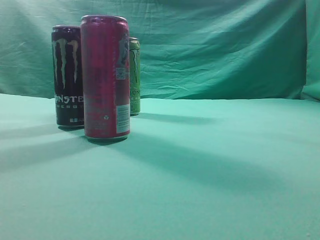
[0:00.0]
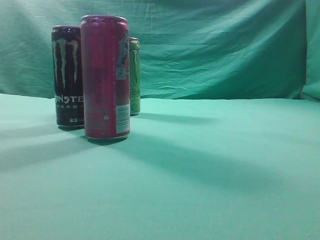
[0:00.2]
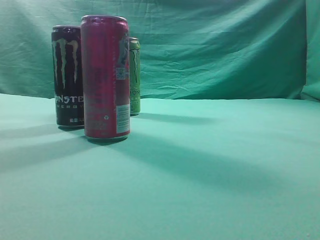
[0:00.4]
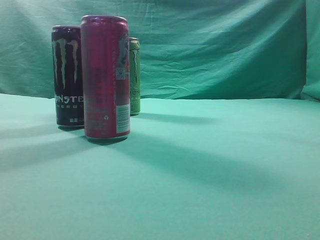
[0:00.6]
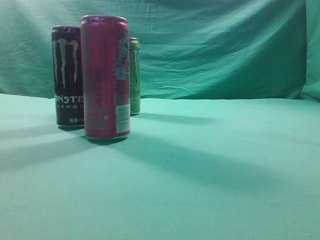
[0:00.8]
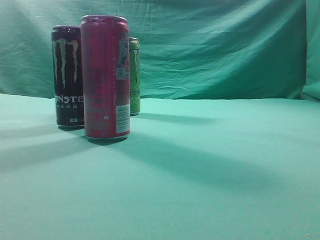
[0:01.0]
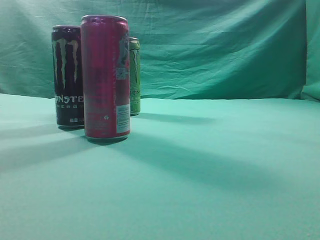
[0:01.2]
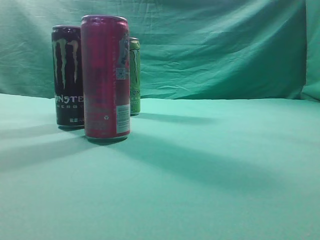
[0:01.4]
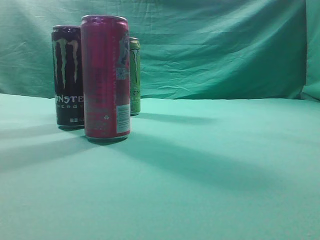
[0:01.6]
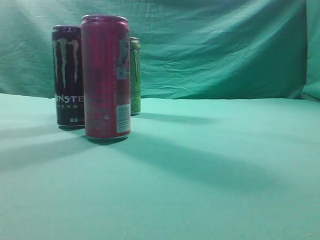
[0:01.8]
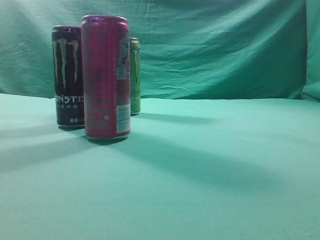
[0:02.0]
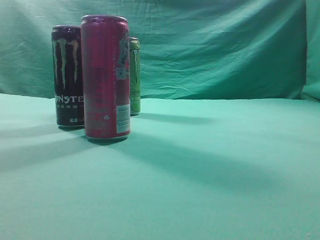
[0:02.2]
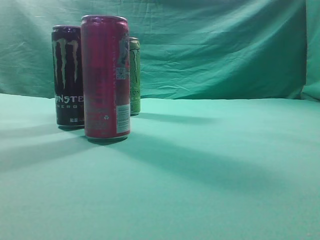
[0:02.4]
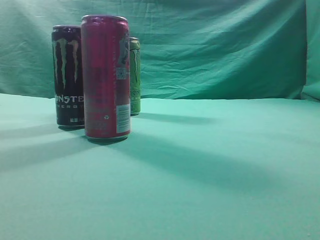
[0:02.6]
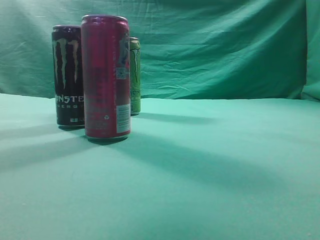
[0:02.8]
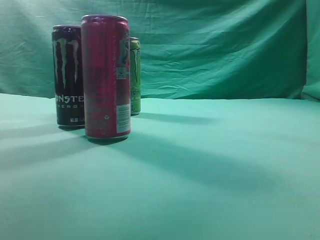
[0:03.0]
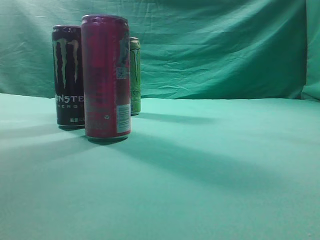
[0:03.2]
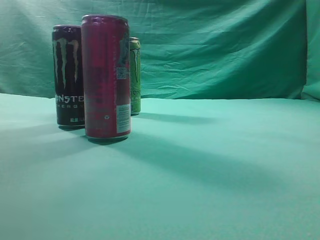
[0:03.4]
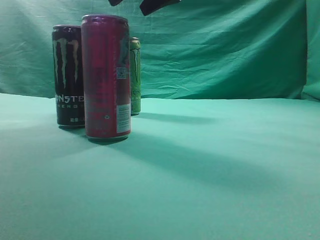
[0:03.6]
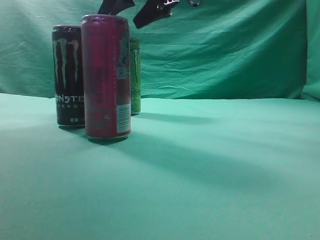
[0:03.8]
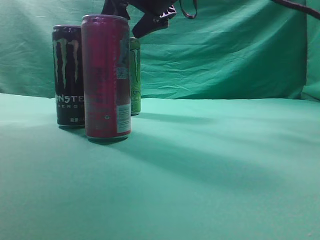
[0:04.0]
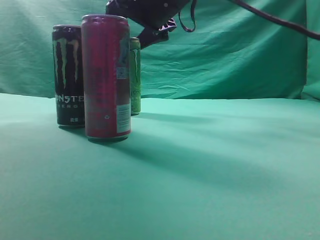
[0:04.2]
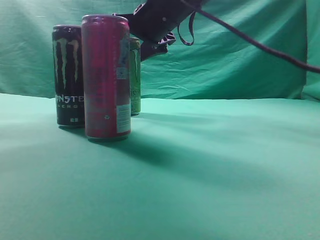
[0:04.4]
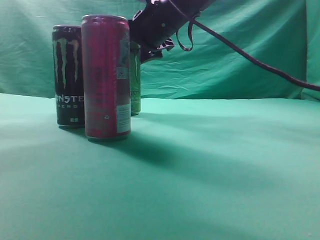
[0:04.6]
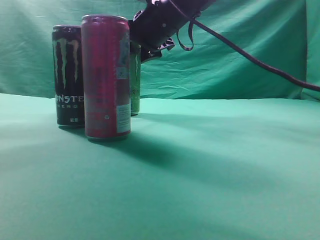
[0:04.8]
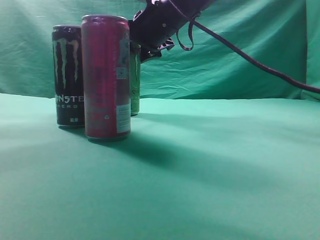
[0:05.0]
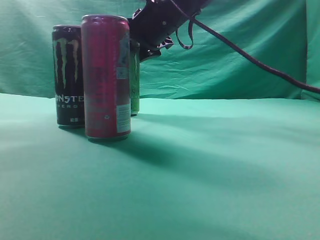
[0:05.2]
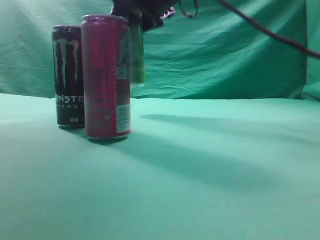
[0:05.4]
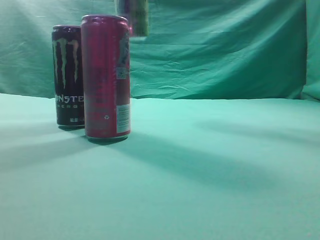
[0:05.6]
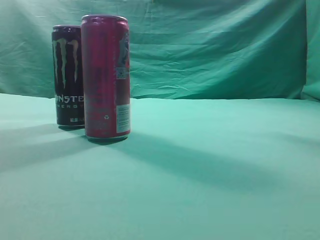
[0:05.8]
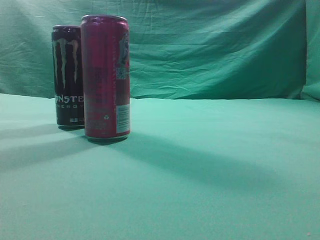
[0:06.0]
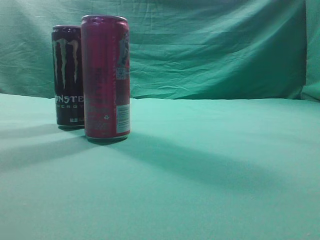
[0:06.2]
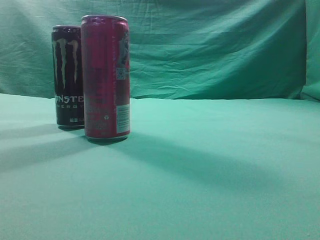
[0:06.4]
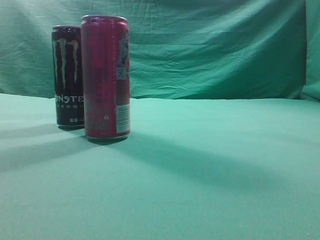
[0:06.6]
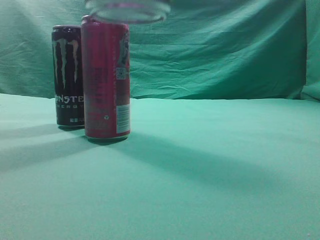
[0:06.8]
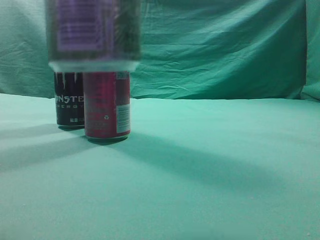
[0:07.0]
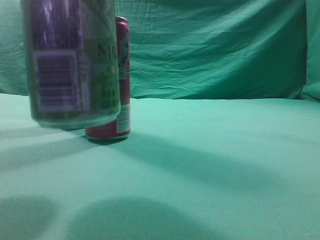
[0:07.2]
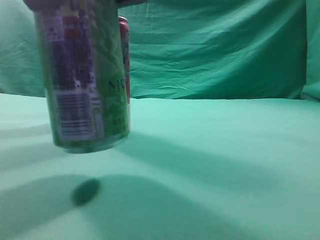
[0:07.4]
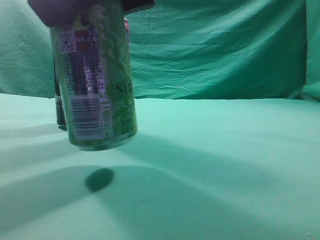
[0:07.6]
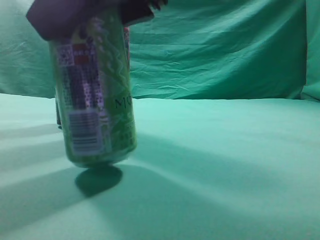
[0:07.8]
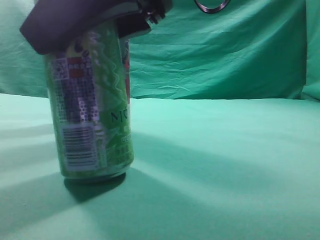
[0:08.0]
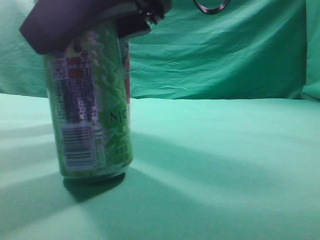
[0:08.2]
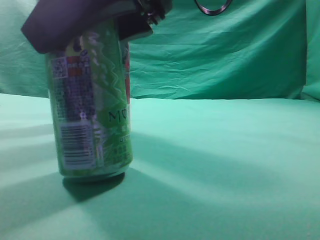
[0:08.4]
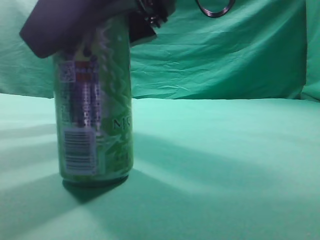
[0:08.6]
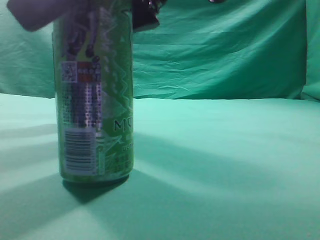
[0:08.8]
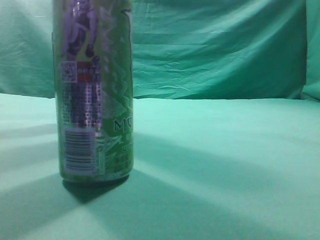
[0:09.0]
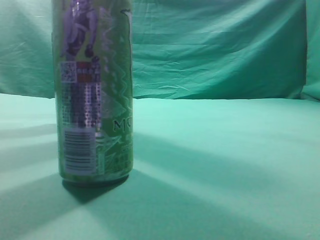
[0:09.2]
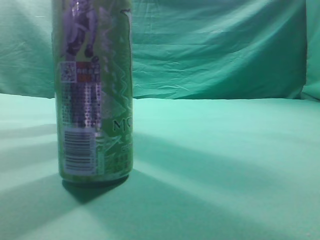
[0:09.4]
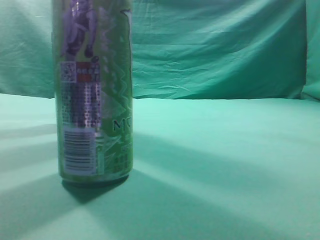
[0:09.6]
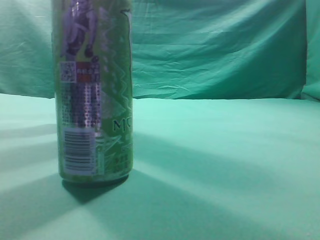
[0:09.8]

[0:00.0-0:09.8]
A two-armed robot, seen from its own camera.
Task of the whole recording: move one drink among three beverages.
Step, 0:00.0 to 0:05.6: Grasp the beverage bottle placed at the back of the desk.
Step, 0:05.8 to 0:08.8: Place the beverage bottle to the front of the table.
0:01.4 to 0:02.8: The right gripper travels forward, upward and to the left by some 25 cm.
0:02.8 to 0:04.2: The right gripper moves forward, to the left and downward, approximately 25 cm, and opens.
0:04.2 to 0:05.6: The right gripper travels upward and backward by some 15 cm.
0:05.6 to 0:07.0: The right gripper goes approximately 20 cm backward.
0:07.0 to 0:08.4: The right gripper heads downward, covering roughly 5 cm.
0:08.4 to 0:09.8: The right gripper moves upward, to the right and backward, roughly 25 cm, and closes up.
